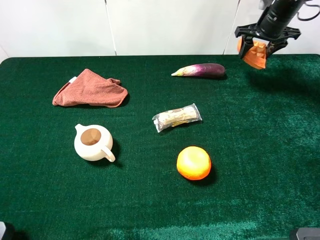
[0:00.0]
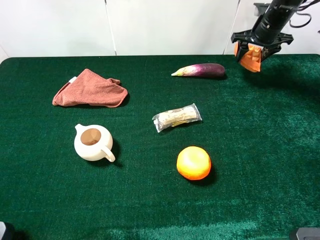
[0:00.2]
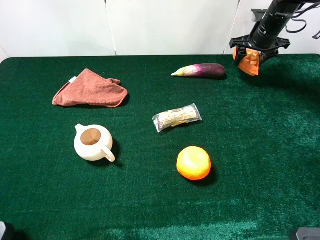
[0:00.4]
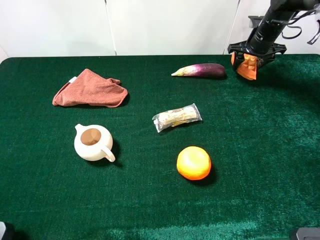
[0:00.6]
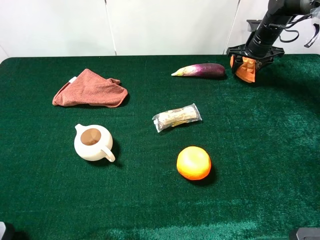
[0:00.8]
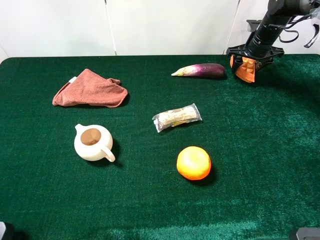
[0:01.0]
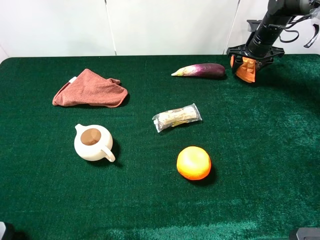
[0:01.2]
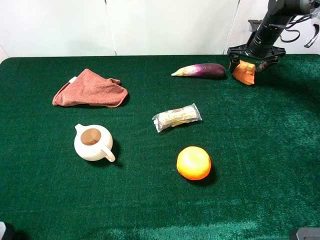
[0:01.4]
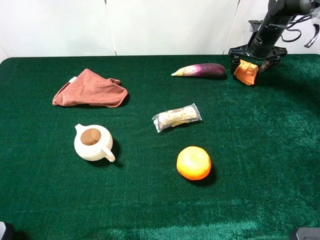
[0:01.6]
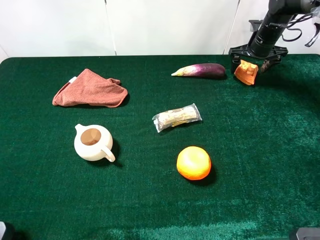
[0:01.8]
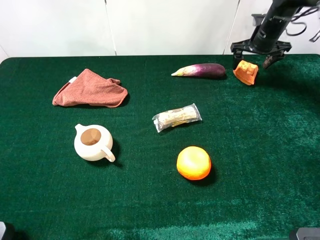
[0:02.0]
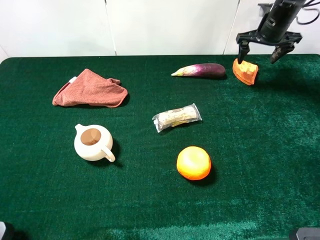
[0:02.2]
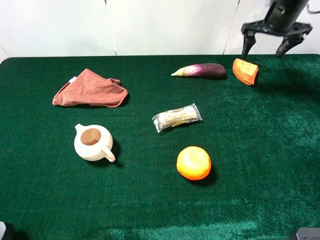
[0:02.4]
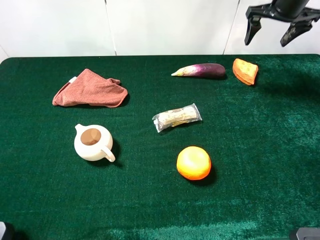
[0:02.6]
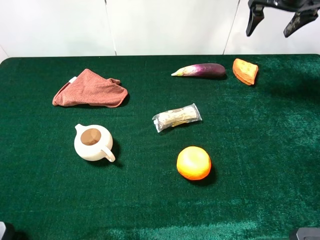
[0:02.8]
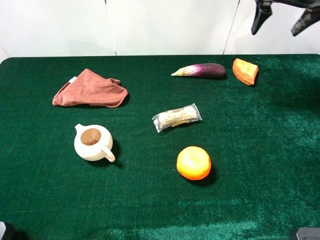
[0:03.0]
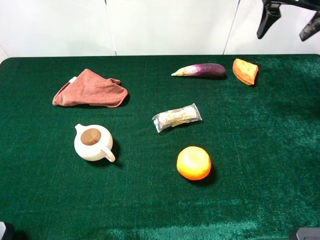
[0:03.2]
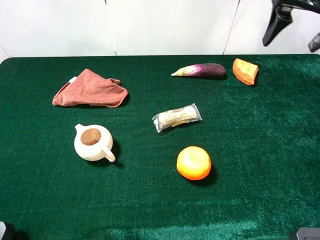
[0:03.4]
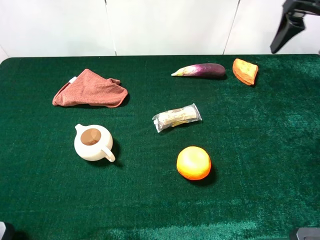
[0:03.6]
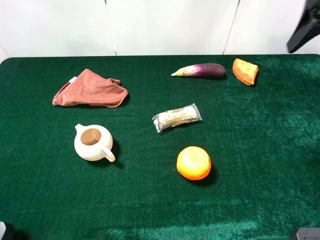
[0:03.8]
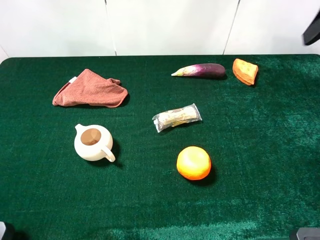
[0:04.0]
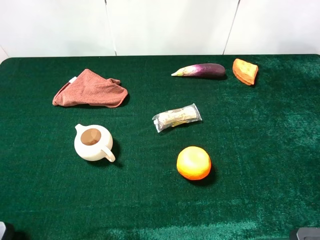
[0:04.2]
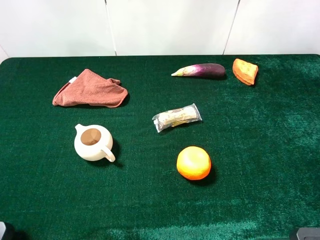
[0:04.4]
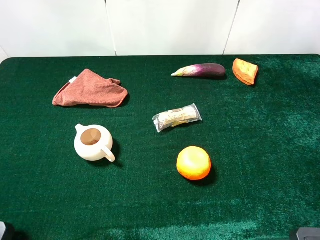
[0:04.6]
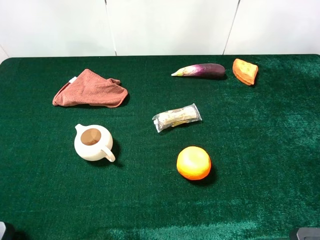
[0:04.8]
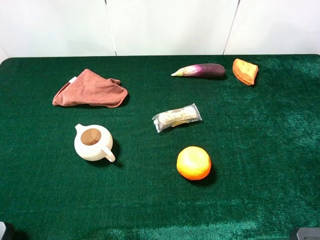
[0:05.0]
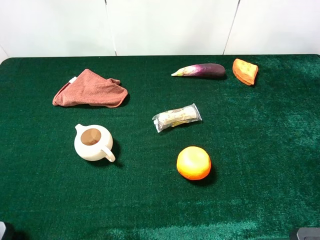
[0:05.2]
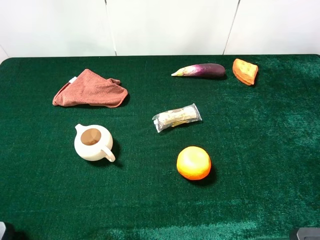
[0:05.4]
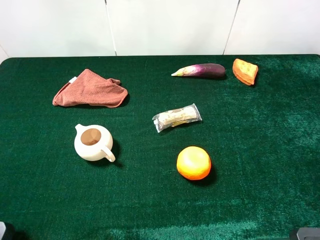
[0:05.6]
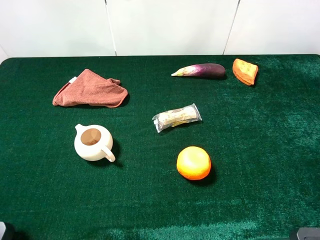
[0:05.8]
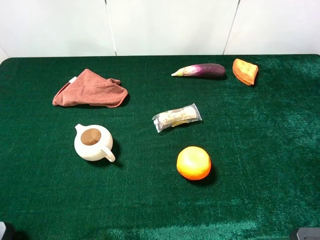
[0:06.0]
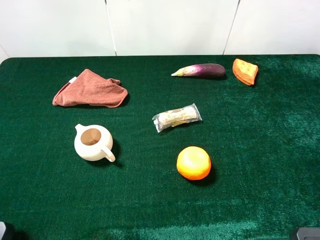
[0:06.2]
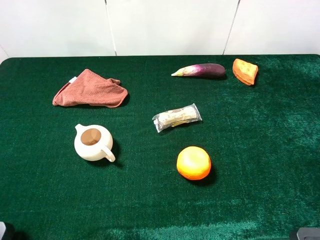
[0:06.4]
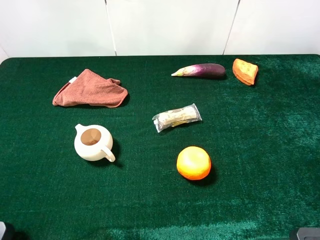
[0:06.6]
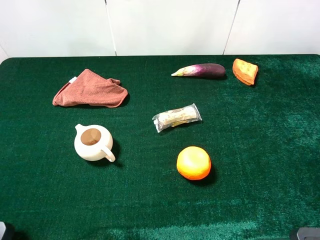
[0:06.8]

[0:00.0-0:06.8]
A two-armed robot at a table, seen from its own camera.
Task of the whole recording: the gripper move the object.
Step, 0:00.0 to 0:02.2: Place the wallfe on the table with the right gripper.
0:00.0 to 0:01.4: The right gripper is displaced downward by approximately 5 cm, and opens its fingers.
0:01.4 to 0:02.8: The right gripper heads upward, covering approximately 15 cm.
0:02.8 to 0:04.0: The right gripper shifts some 25 cm backward and upward.
0:05.4 to 0:06.8: The two grippers keep their place.
